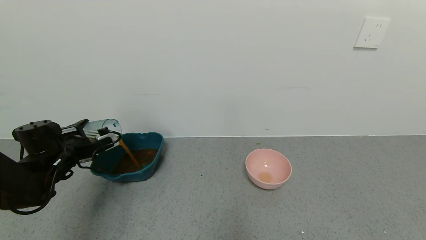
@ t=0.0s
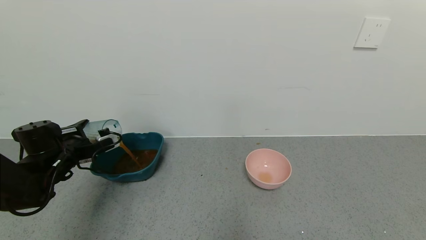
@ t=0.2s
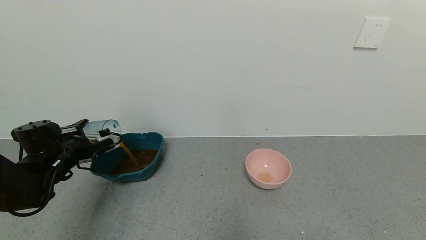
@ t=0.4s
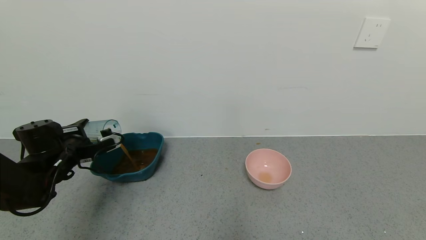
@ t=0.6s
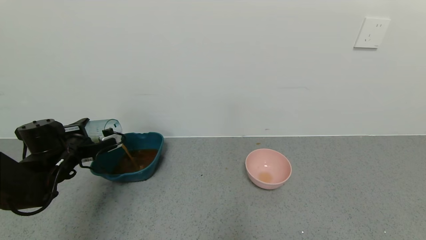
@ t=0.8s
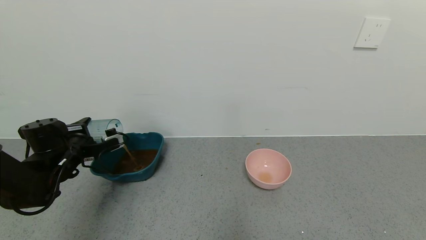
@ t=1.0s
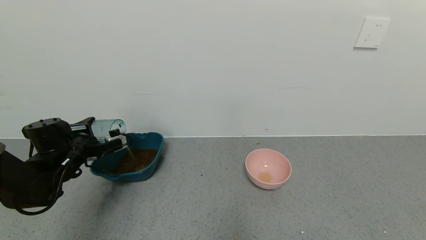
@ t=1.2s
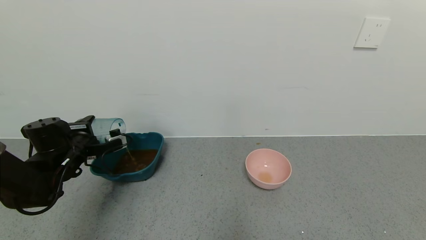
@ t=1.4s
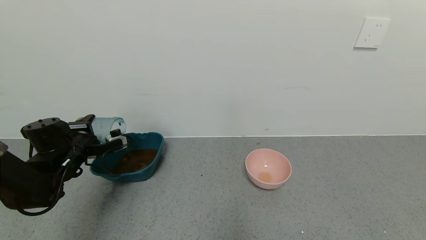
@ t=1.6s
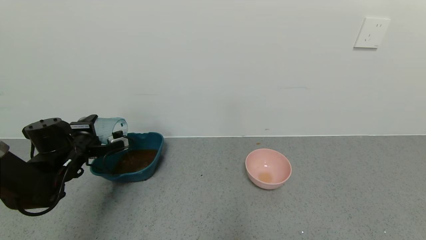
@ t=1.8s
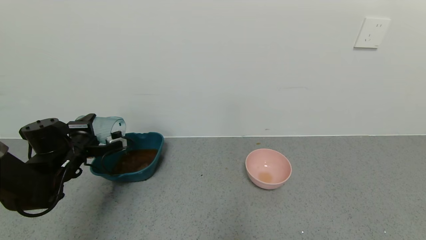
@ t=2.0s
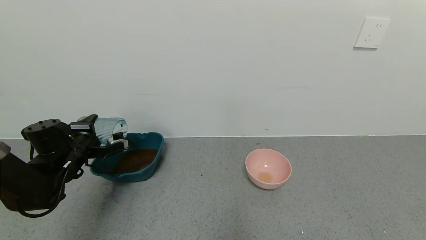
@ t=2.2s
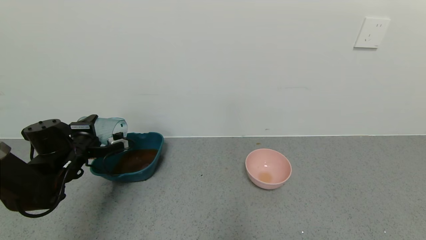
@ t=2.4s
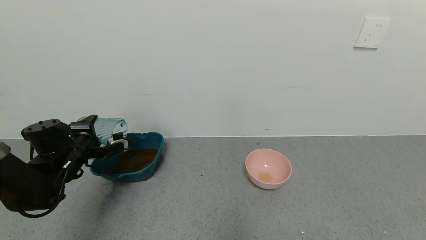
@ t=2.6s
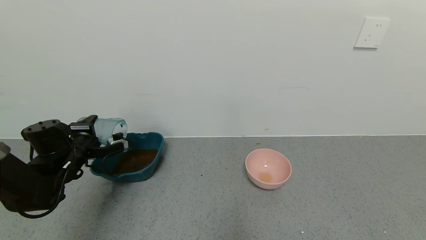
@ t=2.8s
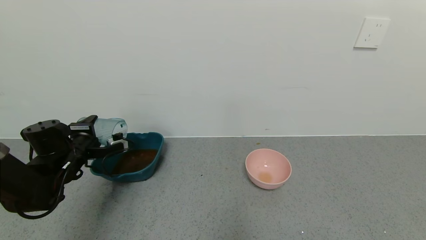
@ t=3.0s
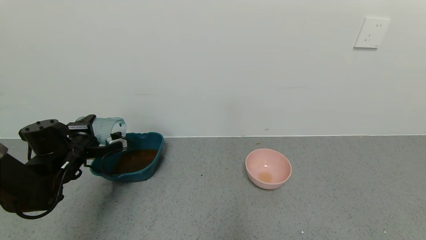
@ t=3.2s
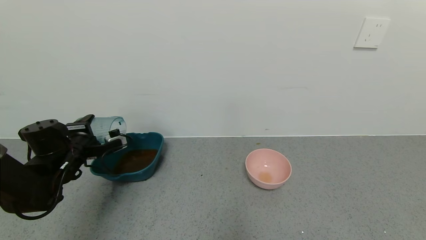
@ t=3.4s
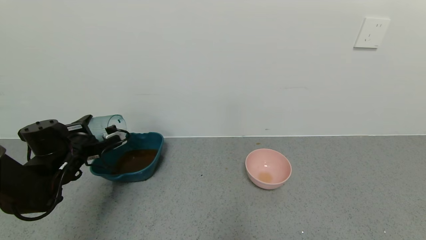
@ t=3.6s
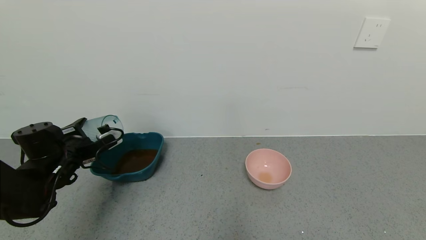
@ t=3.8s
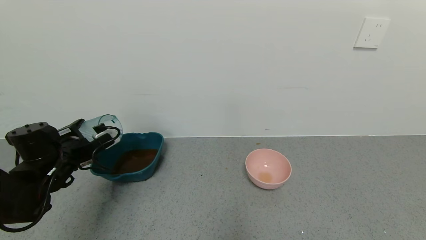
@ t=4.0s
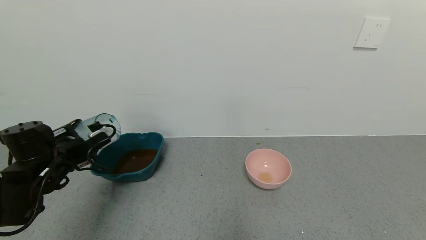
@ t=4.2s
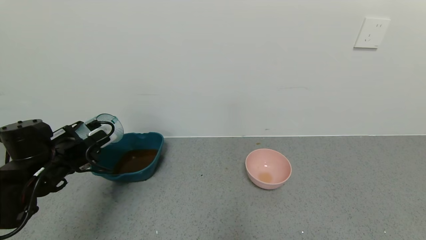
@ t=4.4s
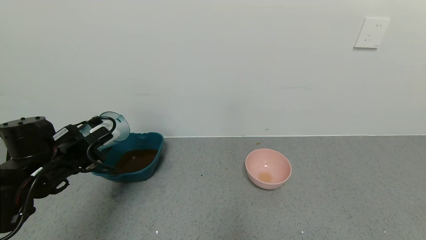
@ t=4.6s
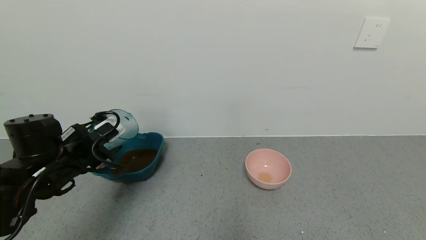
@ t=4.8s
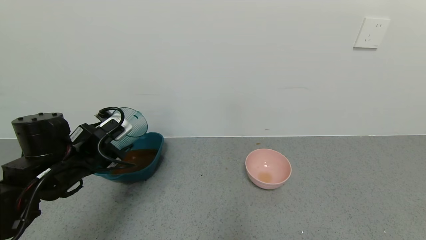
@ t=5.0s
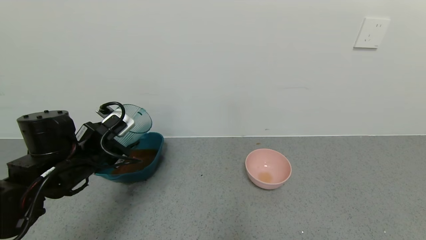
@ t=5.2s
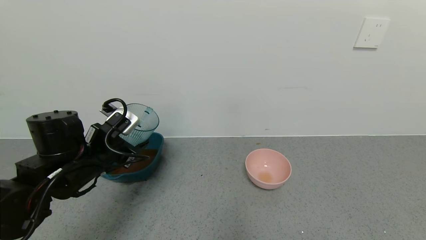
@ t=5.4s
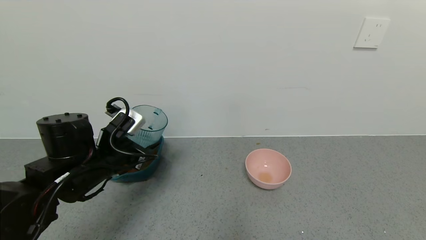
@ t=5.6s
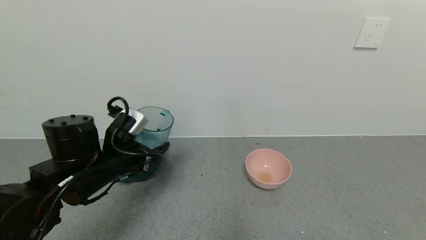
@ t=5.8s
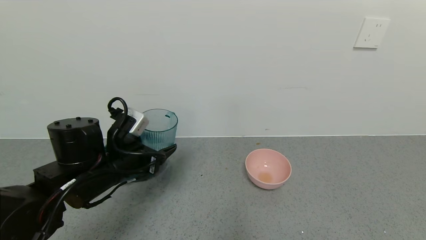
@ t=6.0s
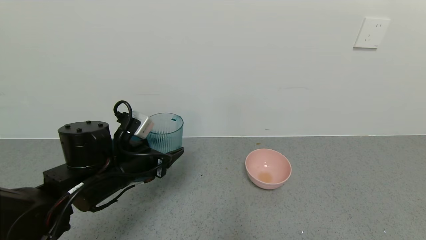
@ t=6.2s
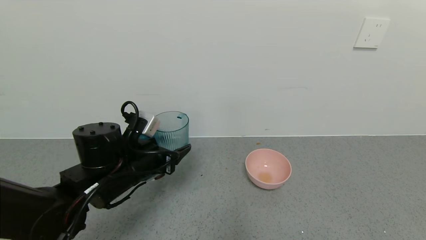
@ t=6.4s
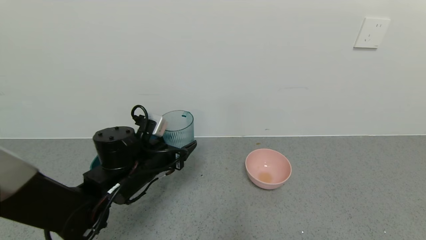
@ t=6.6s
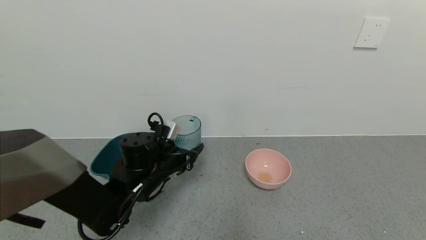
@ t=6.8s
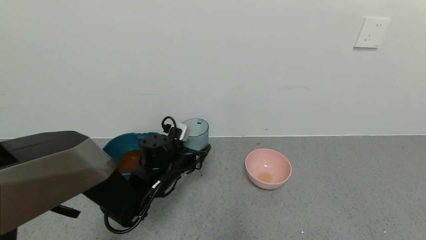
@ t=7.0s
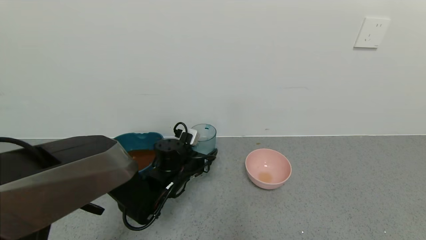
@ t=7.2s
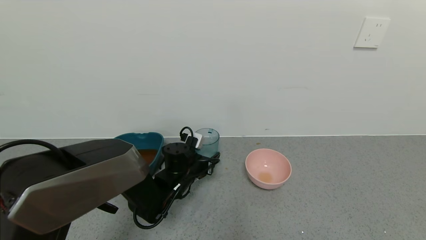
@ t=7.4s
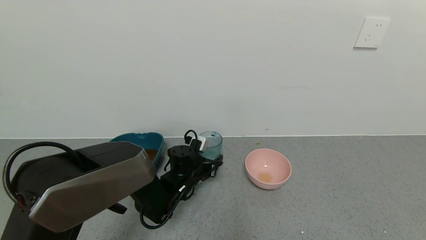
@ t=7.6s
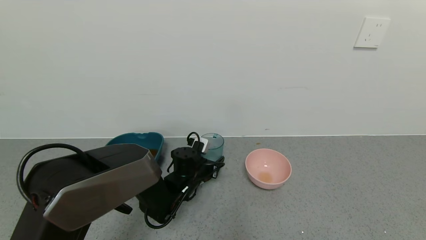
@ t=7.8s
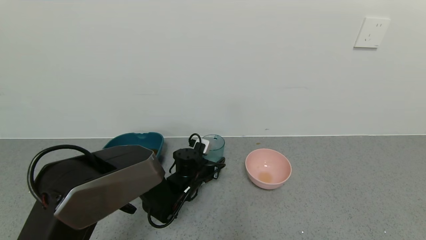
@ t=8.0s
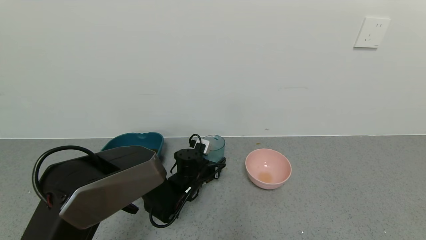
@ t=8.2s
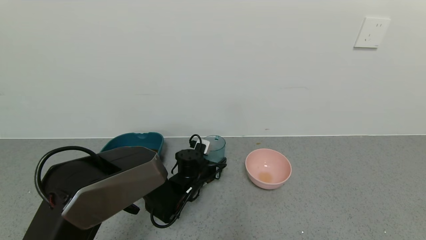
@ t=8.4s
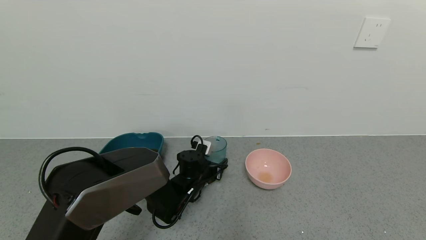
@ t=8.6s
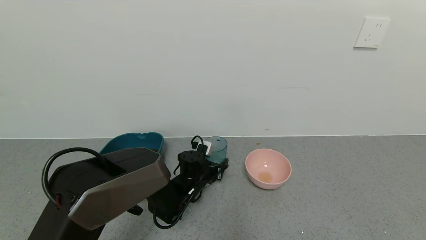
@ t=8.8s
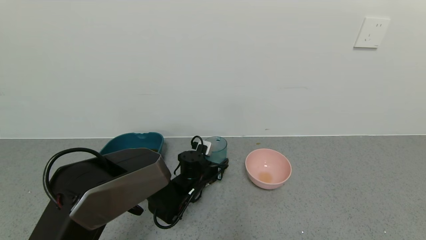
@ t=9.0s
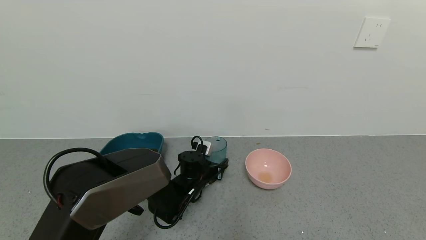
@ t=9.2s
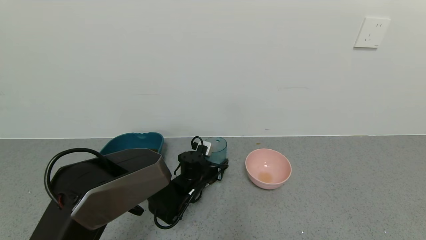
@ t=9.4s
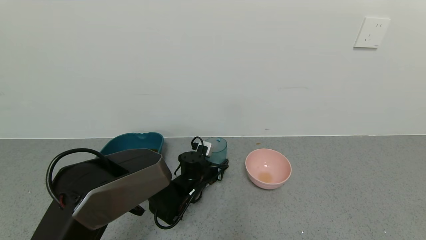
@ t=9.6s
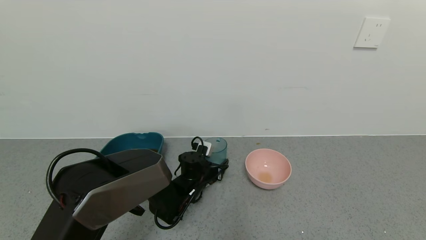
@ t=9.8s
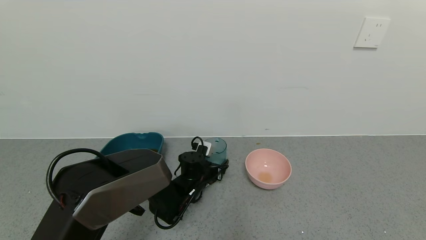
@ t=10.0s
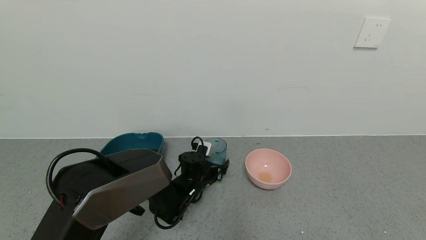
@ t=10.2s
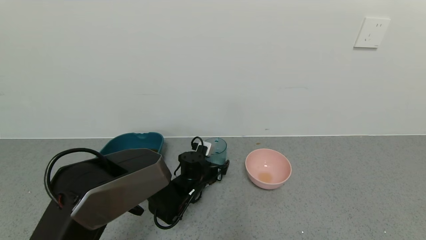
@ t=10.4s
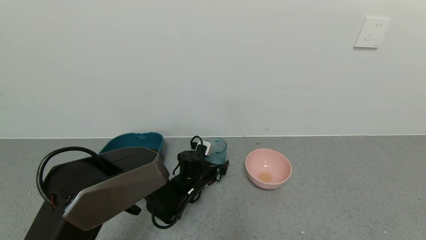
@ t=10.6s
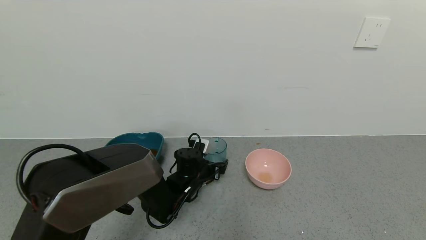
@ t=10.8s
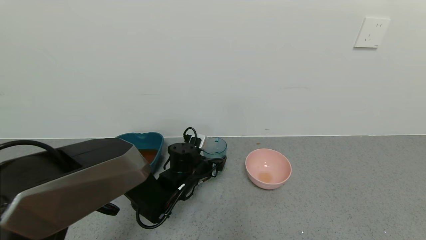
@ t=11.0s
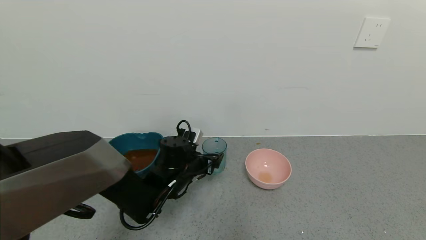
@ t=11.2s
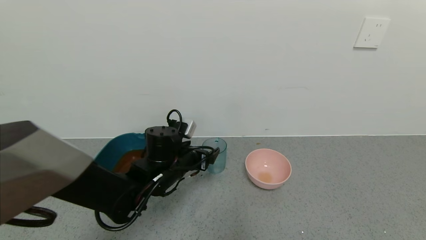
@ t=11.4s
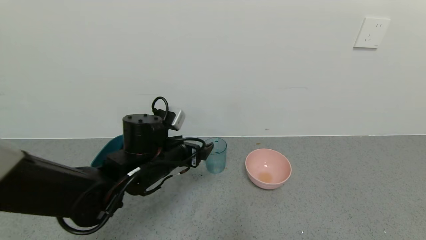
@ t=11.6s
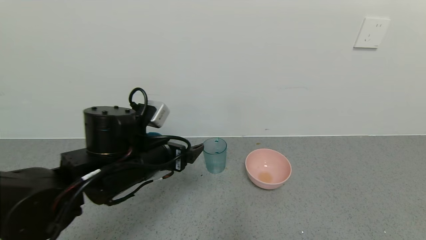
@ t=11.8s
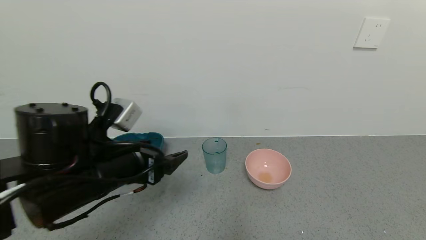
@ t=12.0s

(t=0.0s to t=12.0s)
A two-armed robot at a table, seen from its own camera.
Task of the whole recording: use a gripper to pick up the cup and pour the liquid into a bowl or tray.
Step, t=0.0s - t=3.0s: Pour the black tea into the green bowl with the left gripper.
Step, t=3.2s - t=11.4s: Place the glass cup with the left gripper.
t=0.0s - t=1.6s: The grippers stay close to where they were, moving slightly.
t=1.6s - t=3.0s: Both grippers stay put.
t=3.0s - t=4.4s: The left gripper goes about 5 cm backward.
t=4.4s - t=6.0s: The left gripper goes about 10 cm to the right.
t=6.0s - t=7.6s: The left gripper is displaced downward, forward and to the right by about 20 cm.
t=7.6s - t=9.0s: The grippers move only a little.
t=9.0s - t=10.4s: The left gripper opens.
t=10.4s - t=12.0s: The left gripper travels upward, backward and to the left by some 30 cm.

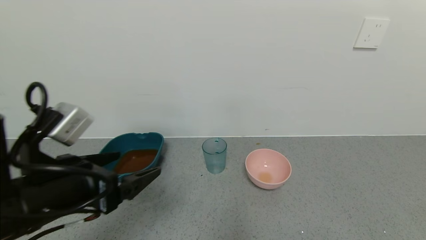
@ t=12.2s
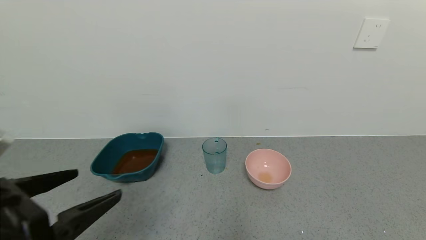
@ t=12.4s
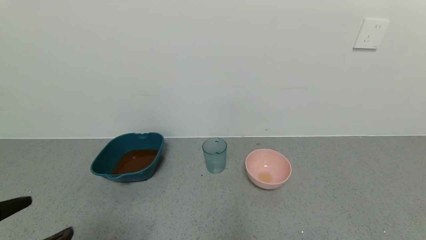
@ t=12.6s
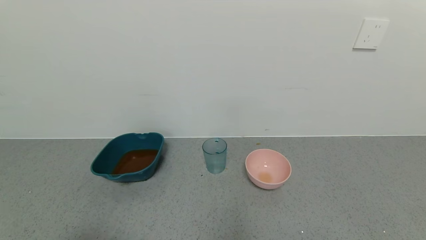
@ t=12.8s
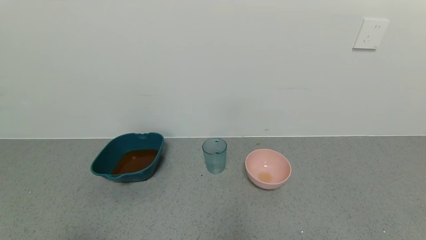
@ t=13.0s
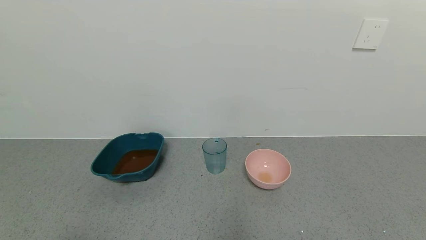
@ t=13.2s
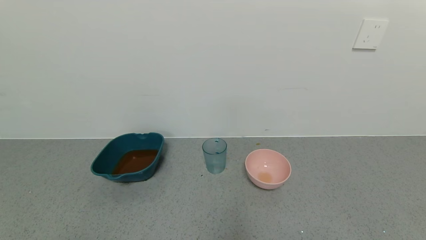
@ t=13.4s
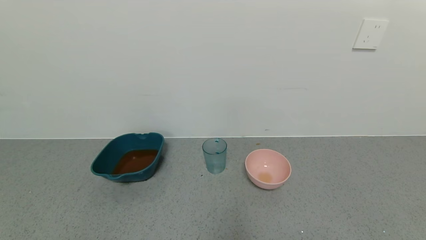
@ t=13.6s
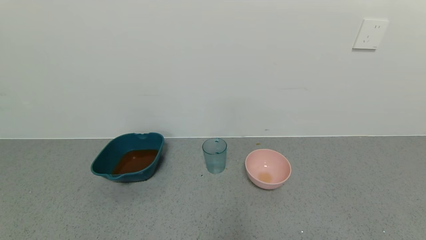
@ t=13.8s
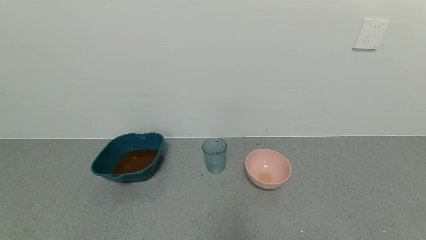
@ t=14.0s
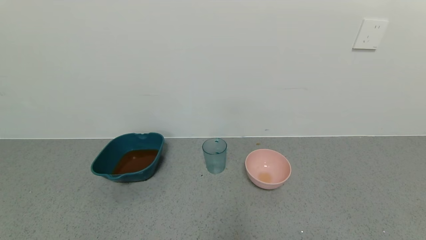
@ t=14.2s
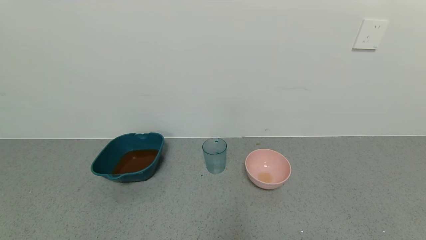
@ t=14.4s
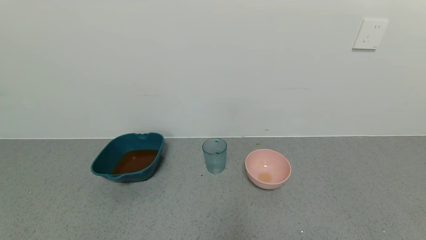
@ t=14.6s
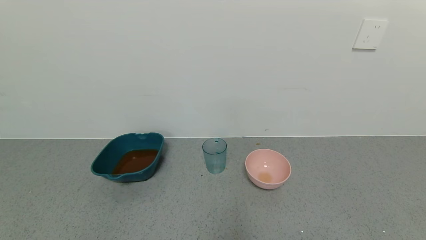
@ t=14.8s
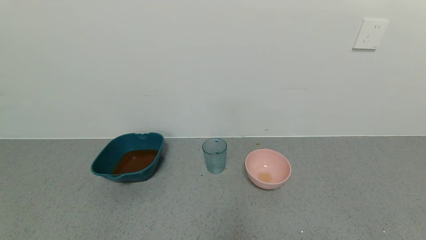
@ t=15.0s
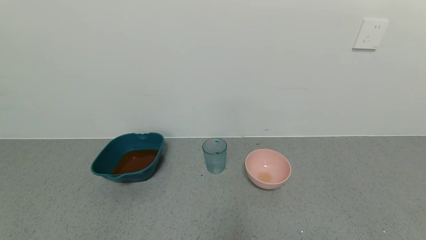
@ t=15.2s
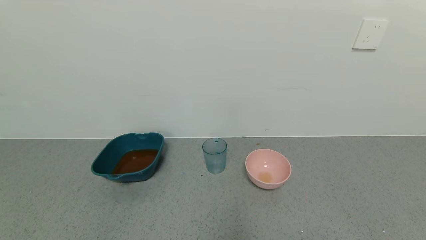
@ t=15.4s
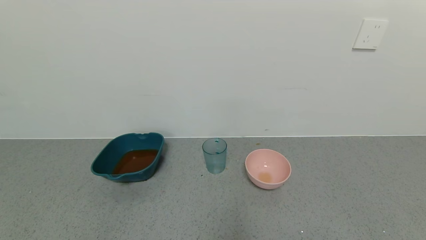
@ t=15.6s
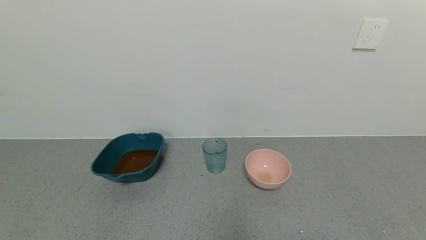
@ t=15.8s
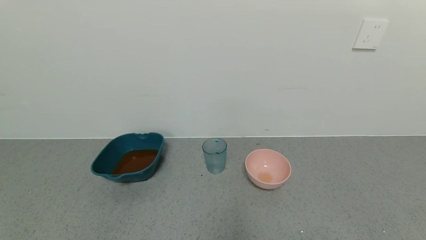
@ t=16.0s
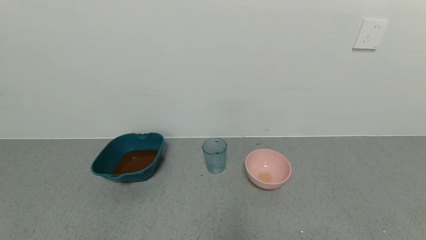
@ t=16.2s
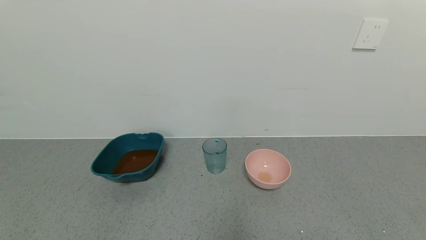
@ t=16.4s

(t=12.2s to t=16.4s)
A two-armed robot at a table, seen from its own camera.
Task of the whole recording: use a gripper to pick up the cup and pour the liquid into a bowl or tray.
t=12.2s - t=13.6s: The left gripper goes roughly 20 cm backward and to the left.
